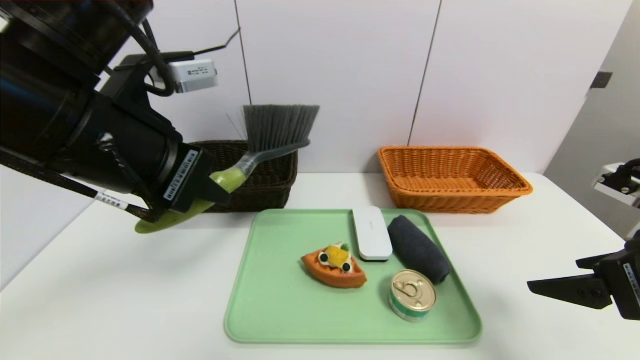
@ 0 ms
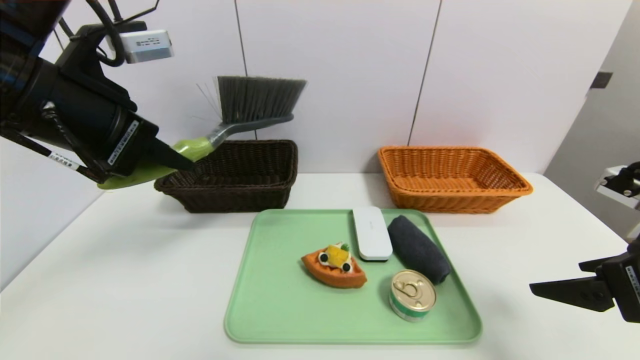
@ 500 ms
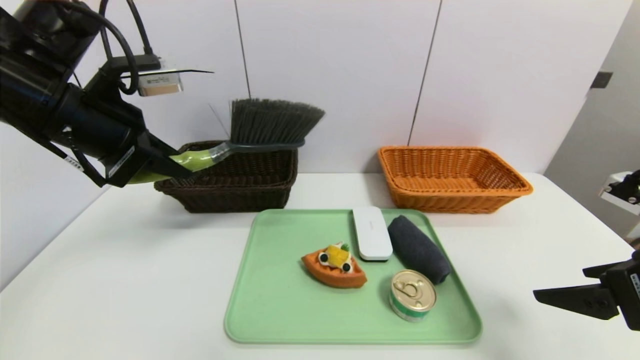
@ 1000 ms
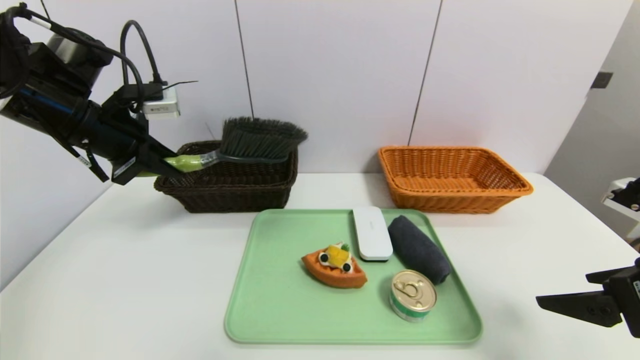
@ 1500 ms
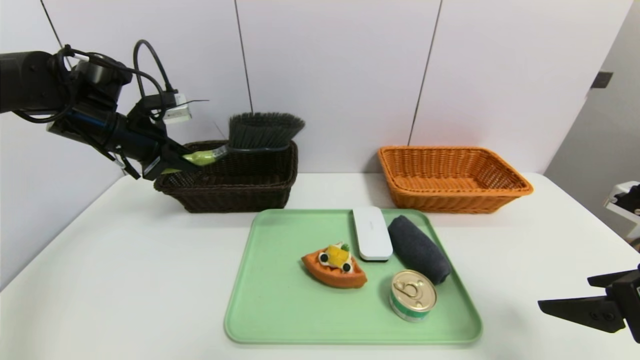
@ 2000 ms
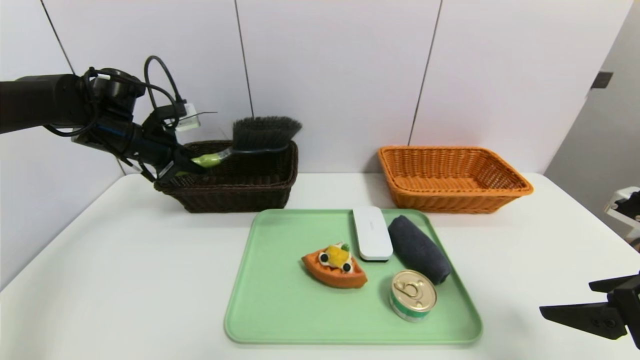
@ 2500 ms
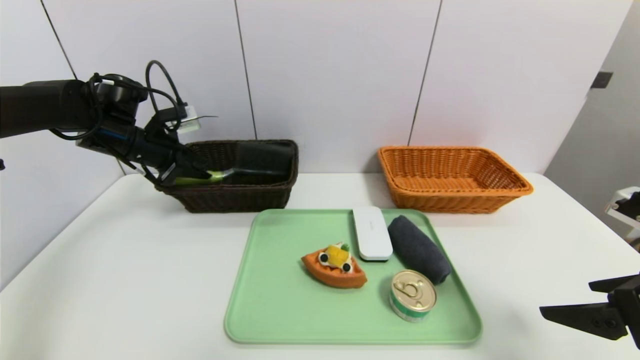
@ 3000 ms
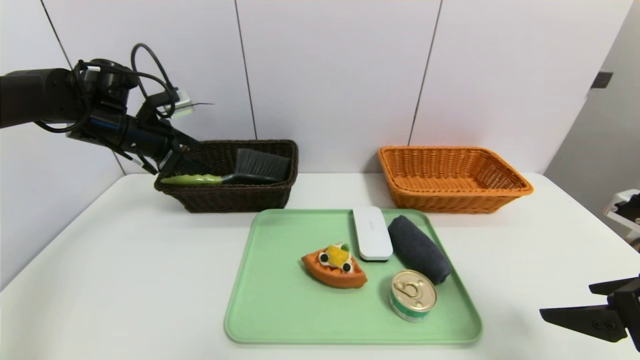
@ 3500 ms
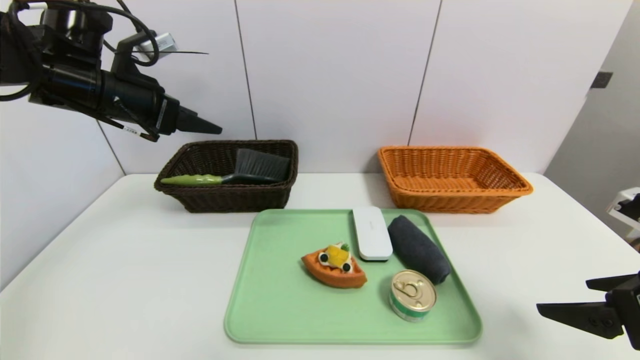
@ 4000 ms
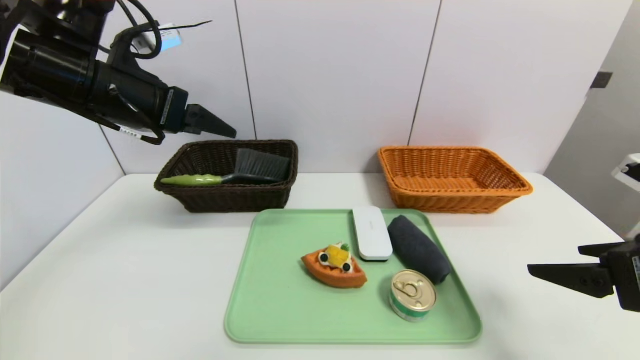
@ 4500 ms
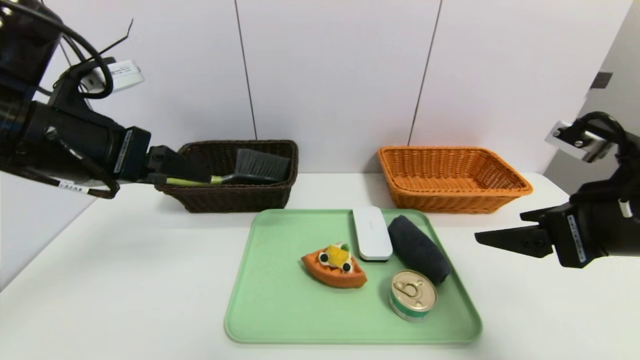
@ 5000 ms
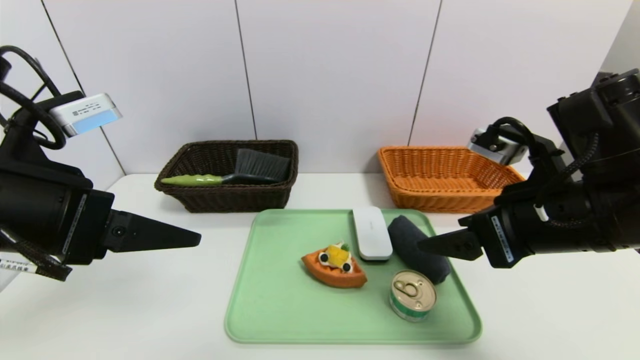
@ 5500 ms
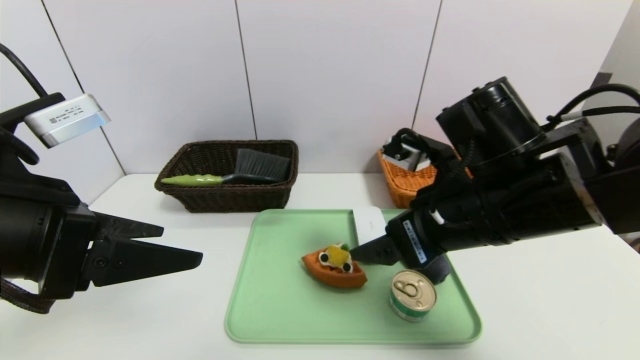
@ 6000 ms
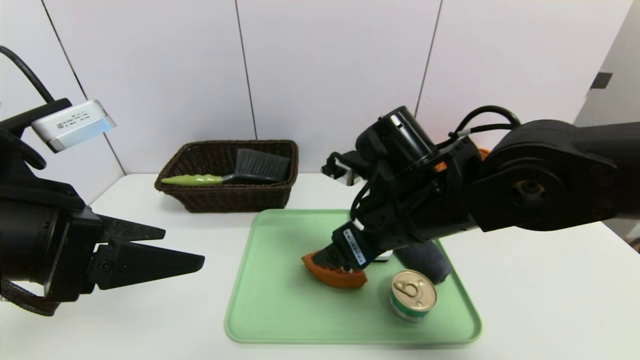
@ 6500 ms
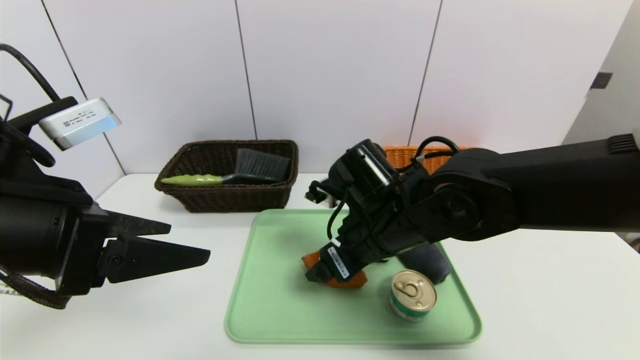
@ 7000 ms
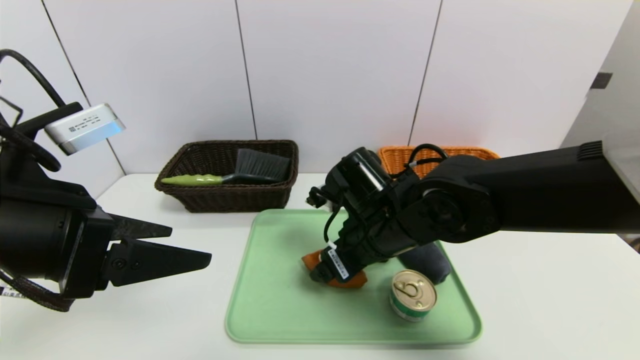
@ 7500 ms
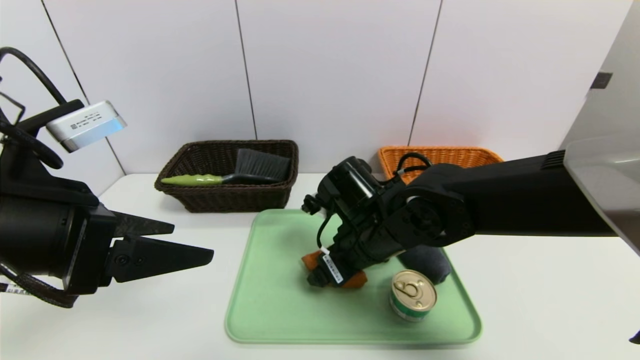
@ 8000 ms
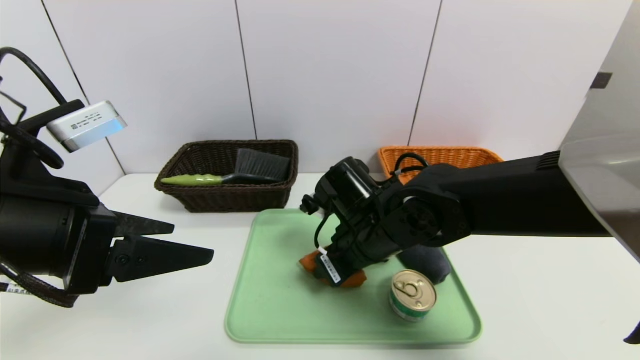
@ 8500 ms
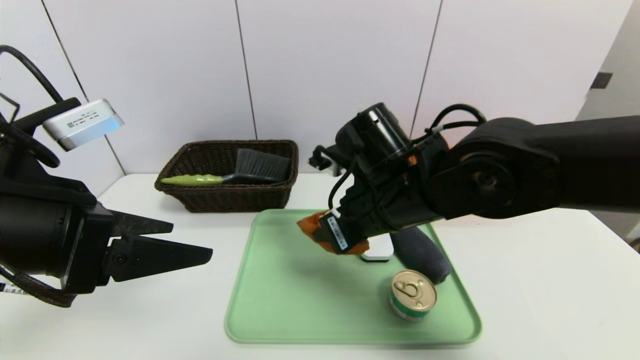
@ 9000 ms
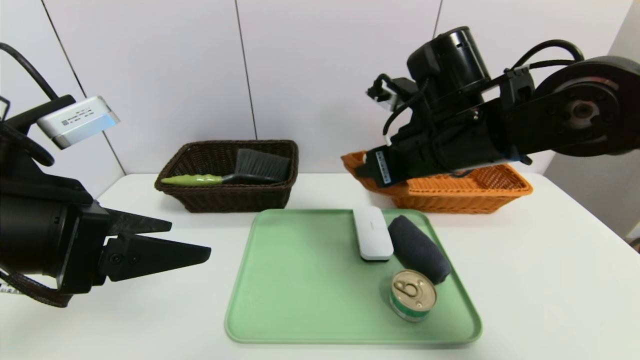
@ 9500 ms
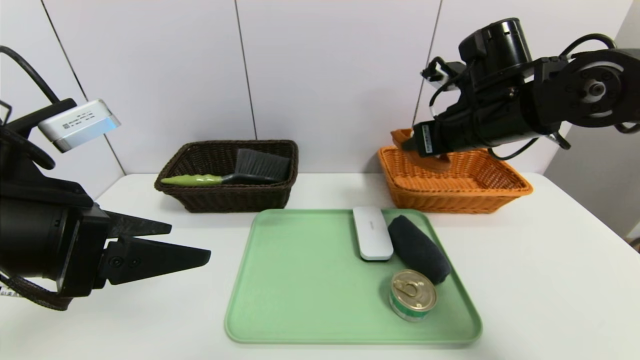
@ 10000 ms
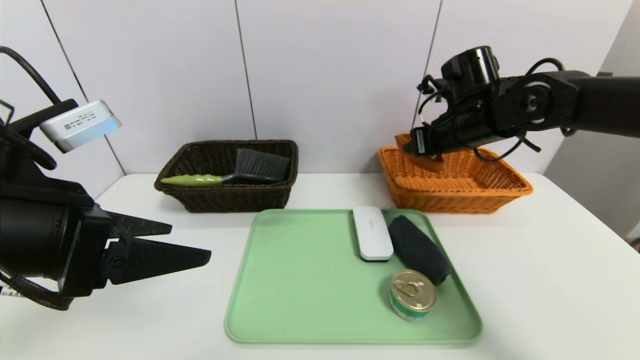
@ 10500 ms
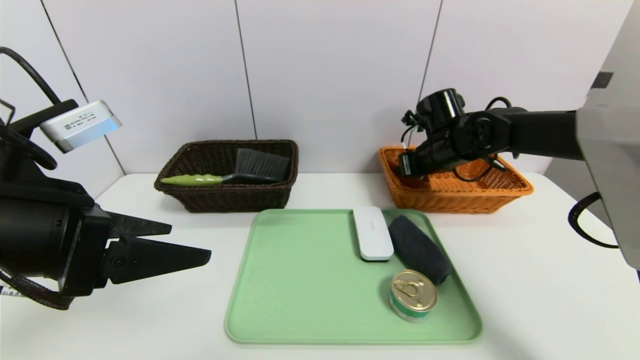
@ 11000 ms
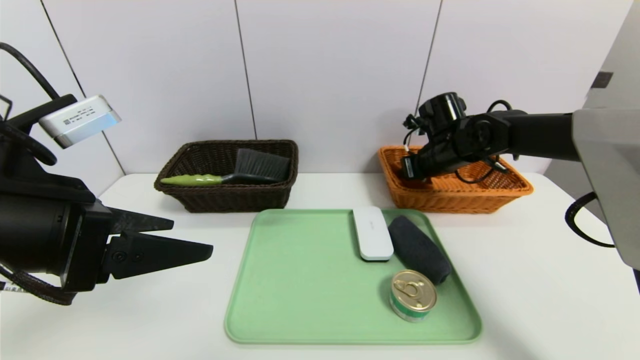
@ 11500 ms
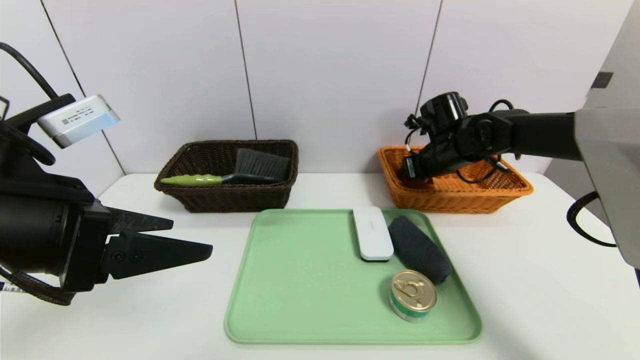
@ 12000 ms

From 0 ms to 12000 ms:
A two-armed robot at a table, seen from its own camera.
Task of the whole recording: place the food in the right basket with the right gripper, and place the non food items in the left basket with the left gripper.
Step, from 0 ms to 3500 ms: Grasp the brush and put it in the left basket.
From 0 ms to 2000 ms: The left gripper is displaced forward, to the left and downward by some 25 cm.
From 2000 ms to 4000 ms: The left gripper is displaced upward by approximately 5 cm, and opens up.
From 4000 ms to 6000 ms: The left gripper shifts approximately 20 cm backward. The right gripper moves to the left and forward, about 20 cm.
From 6000 ms to 8000 ms: The right gripper goes some 15 cm downward, to the left and forward.
From 8000 ms to 10000 ms: The right gripper shifts roughly 20 cm to the right and upward, and closes up.
From 10000 ms to 12000 ms: The right gripper moves forward and downward, approximately 15 cm, and opens up.

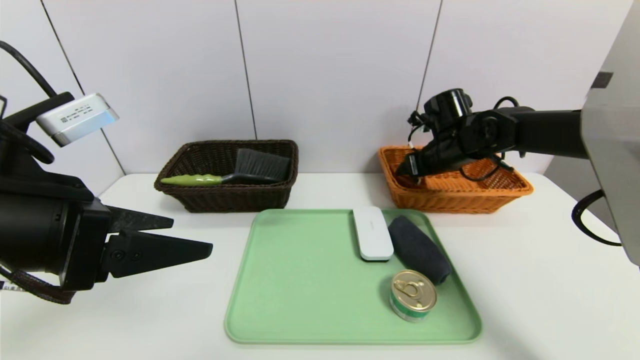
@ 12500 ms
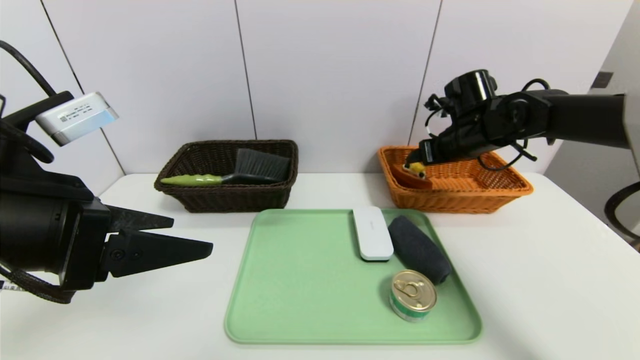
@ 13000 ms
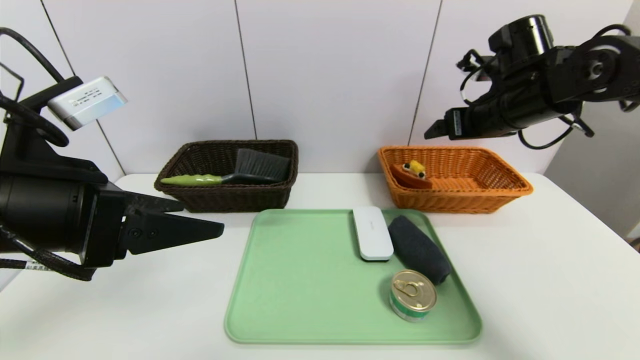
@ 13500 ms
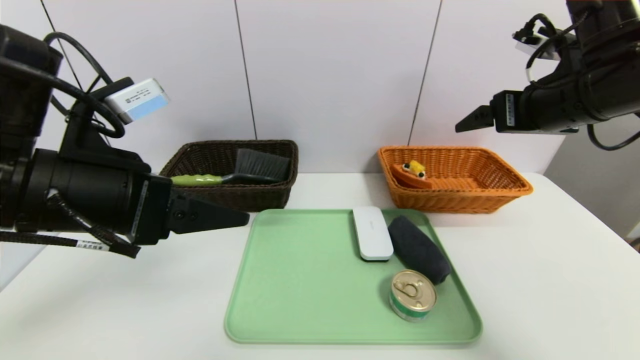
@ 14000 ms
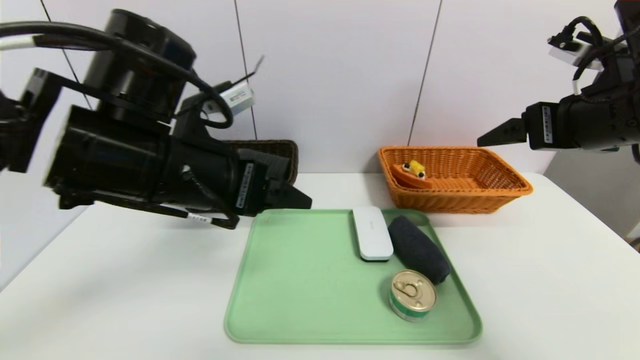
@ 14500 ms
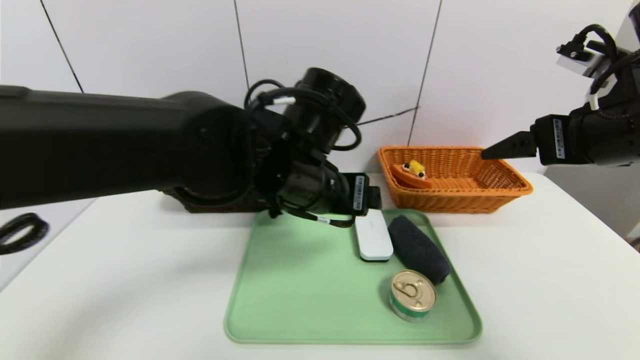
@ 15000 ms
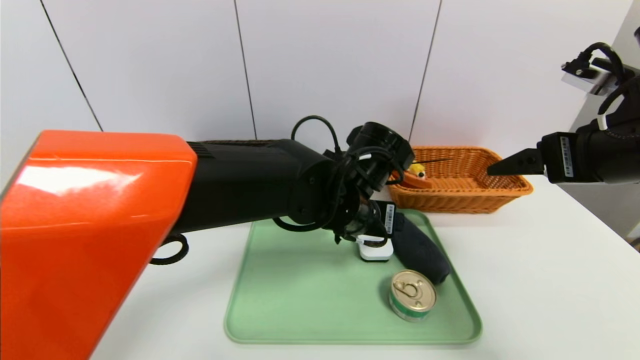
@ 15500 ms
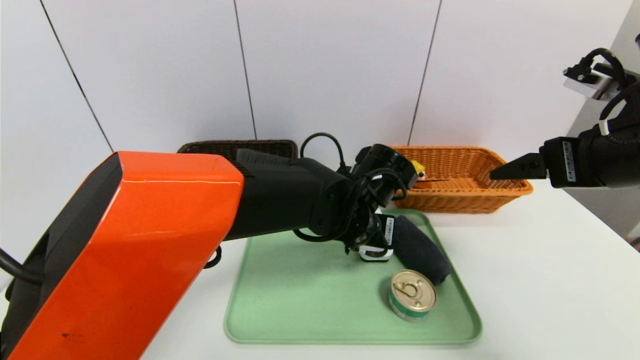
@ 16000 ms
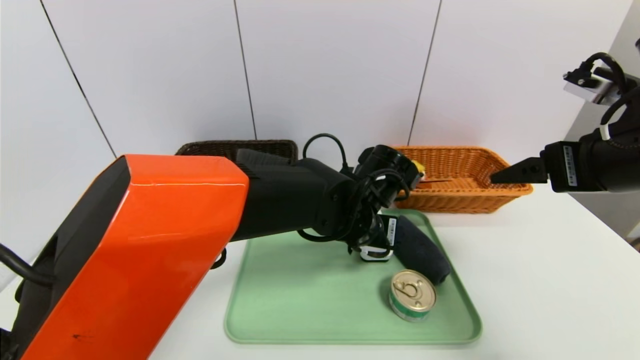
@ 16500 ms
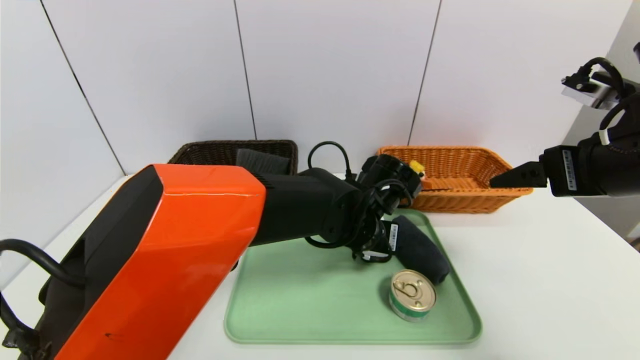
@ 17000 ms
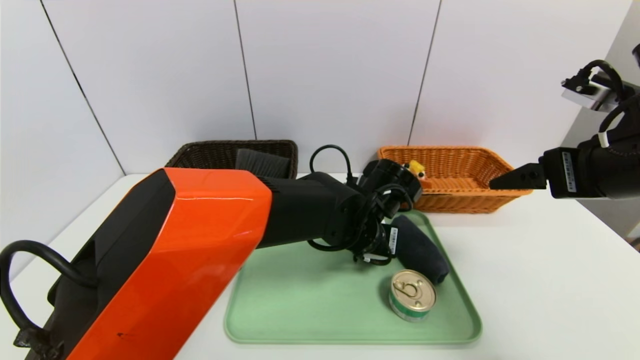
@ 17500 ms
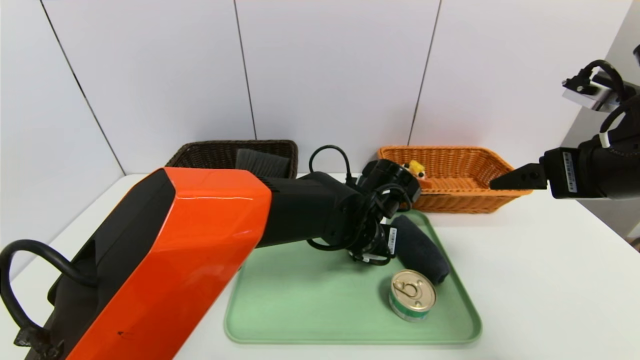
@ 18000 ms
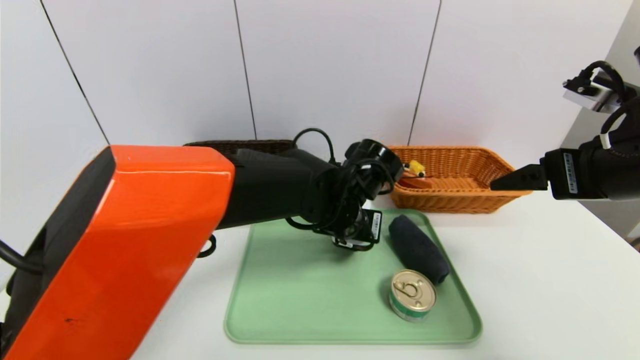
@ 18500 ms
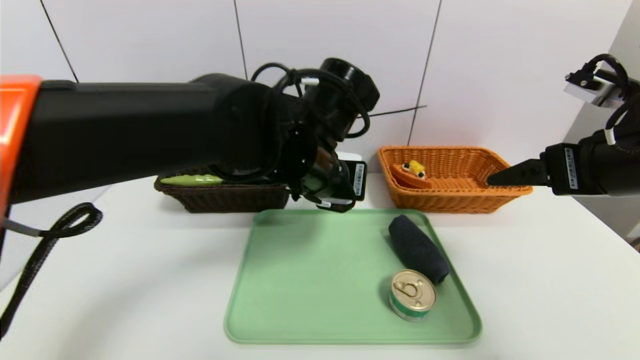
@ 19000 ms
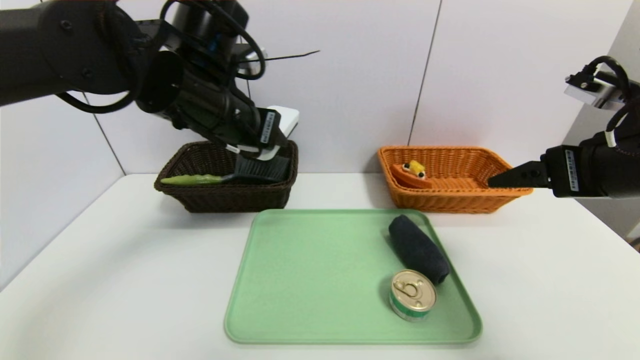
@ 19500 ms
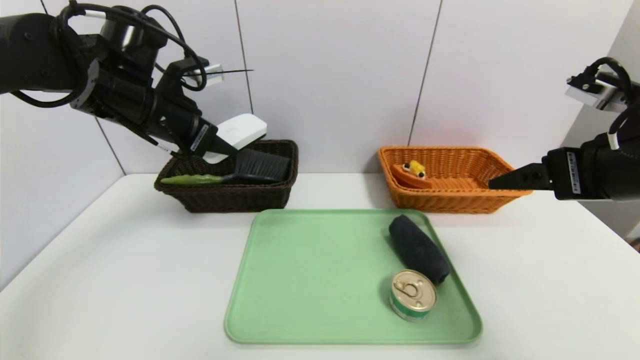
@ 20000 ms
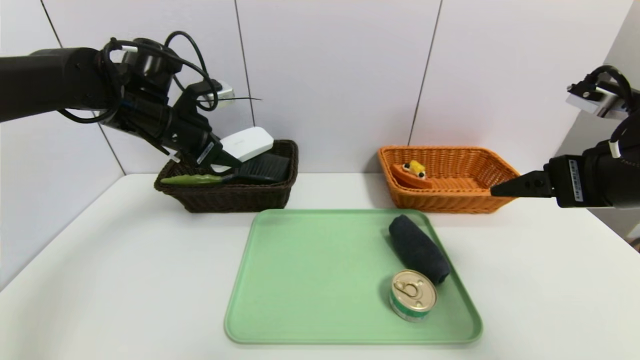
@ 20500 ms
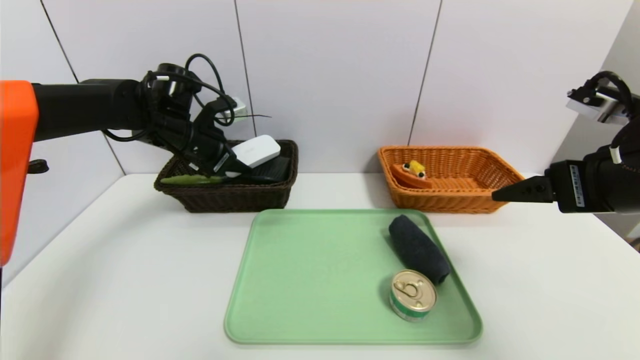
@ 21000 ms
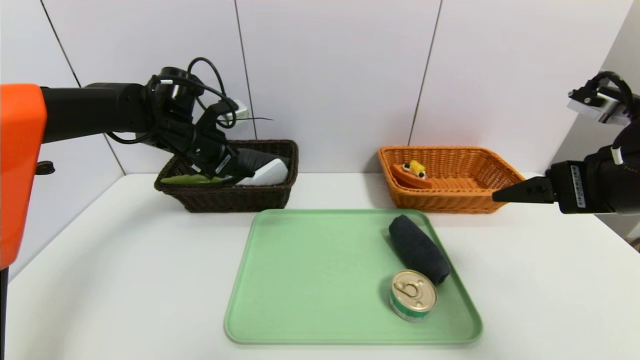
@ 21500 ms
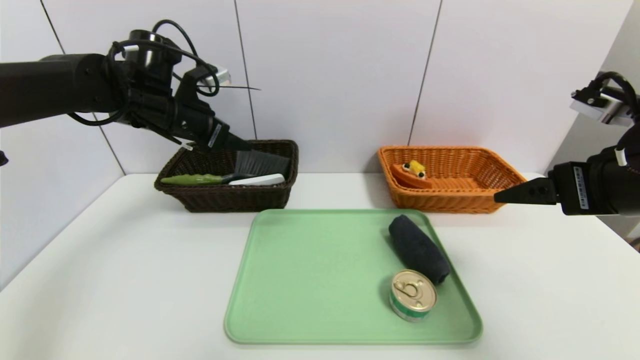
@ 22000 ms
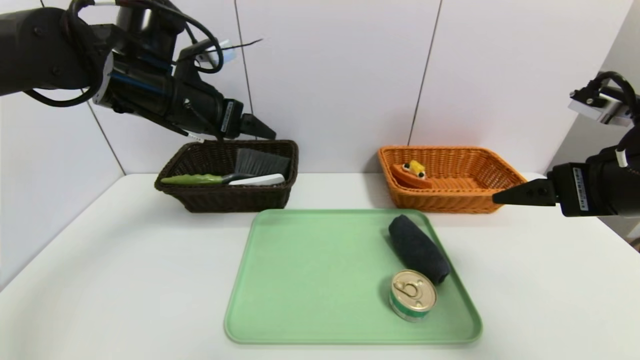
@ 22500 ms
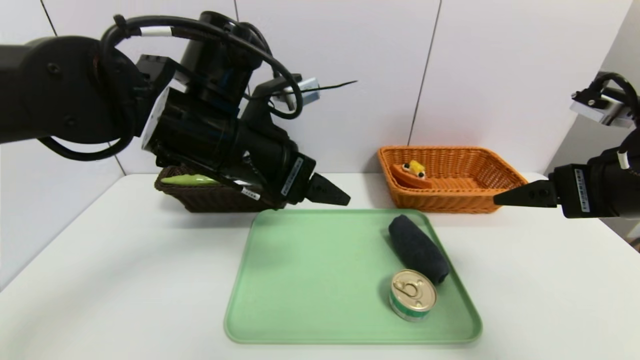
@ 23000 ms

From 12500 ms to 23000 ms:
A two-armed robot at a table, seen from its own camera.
Task of the whole recording: place the food in the right basket with the right gripper, and place the non food items in the left basket with the left gripper.
Step, from 13500 ms to 21500 ms: Grasp the white eraser and put it in the left basket.
From 12500 ms to 14500 ms: The left gripper is displaced to the right and forward by roughly 10 cm; the right gripper heads backward and upward, covering roughly 25 cm.
From 14500 ms to 16500 ms: The left gripper goes roughly 25 cm to the right and downward.
From 16500 ms to 19000 ms: The left gripper goes roughly 10 cm upward and to the left, and closes.
From 19000 ms to 21000 ms: The left gripper heads to the left and forward, covering about 25 cm.
From 21000 ms to 23000 ms: The left gripper is displaced backward and to the right by roughly 20 cm, and opens.
